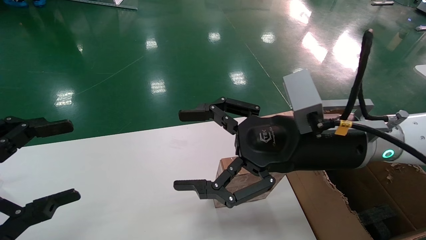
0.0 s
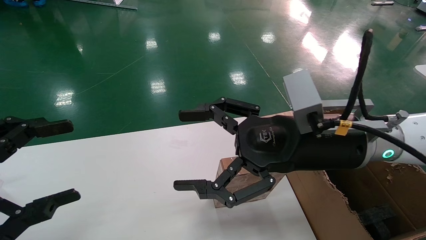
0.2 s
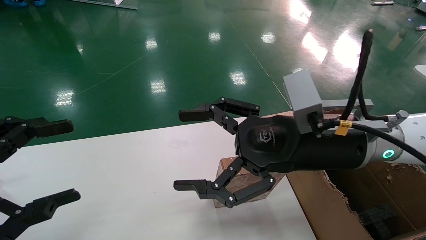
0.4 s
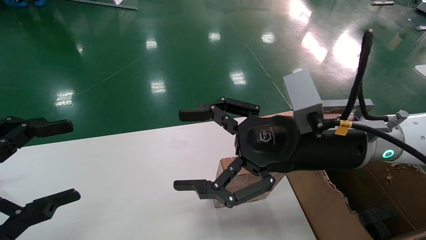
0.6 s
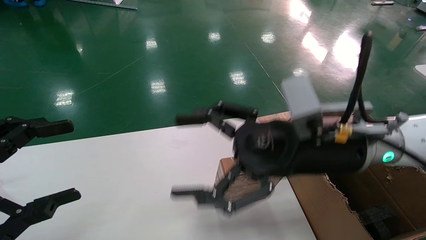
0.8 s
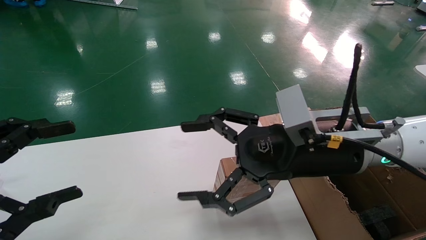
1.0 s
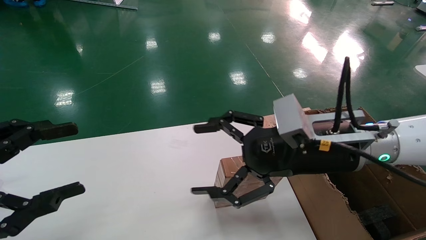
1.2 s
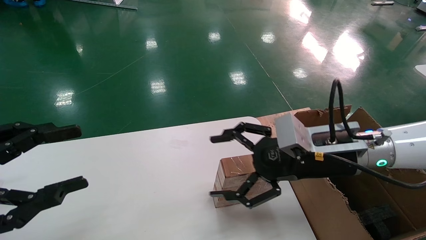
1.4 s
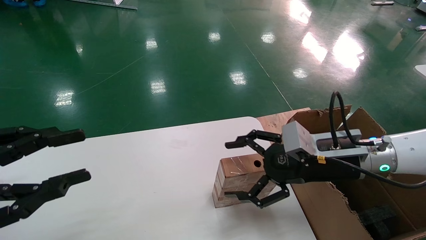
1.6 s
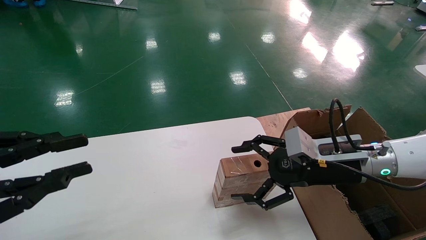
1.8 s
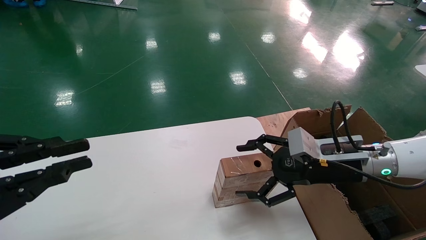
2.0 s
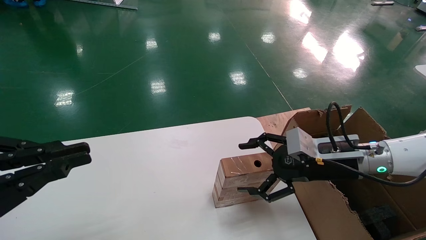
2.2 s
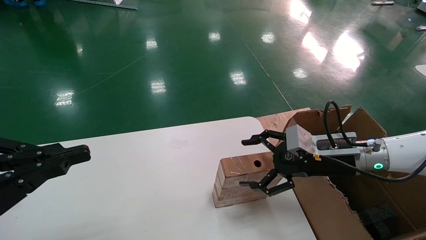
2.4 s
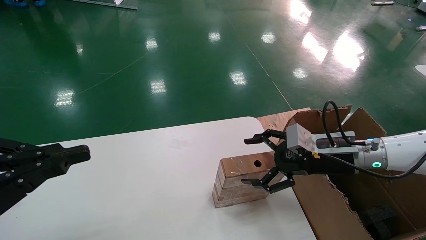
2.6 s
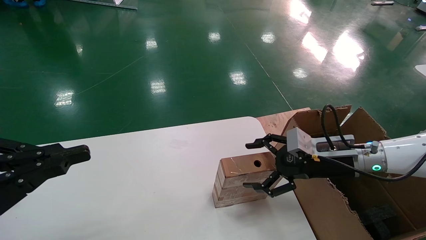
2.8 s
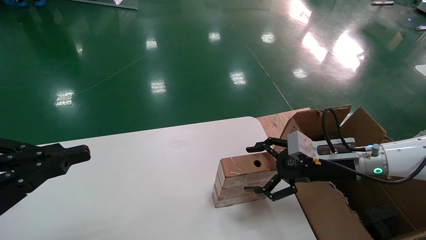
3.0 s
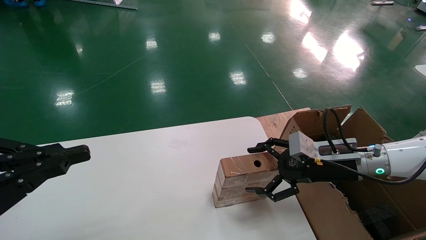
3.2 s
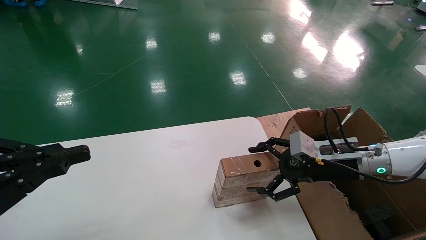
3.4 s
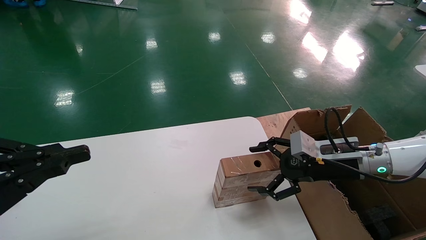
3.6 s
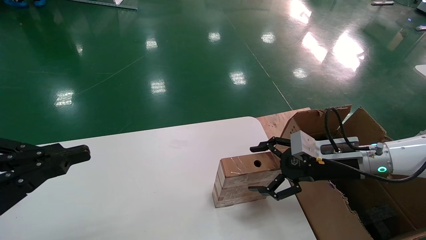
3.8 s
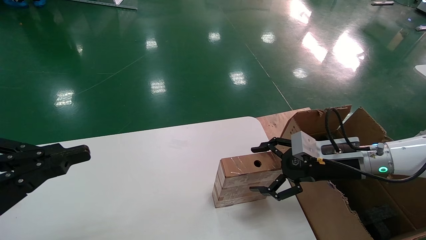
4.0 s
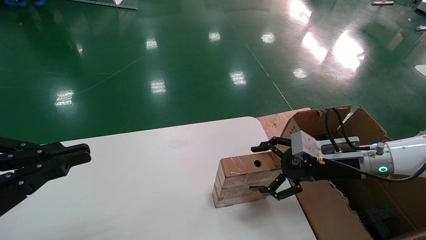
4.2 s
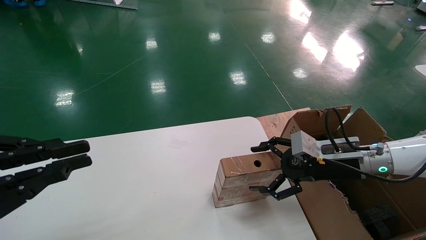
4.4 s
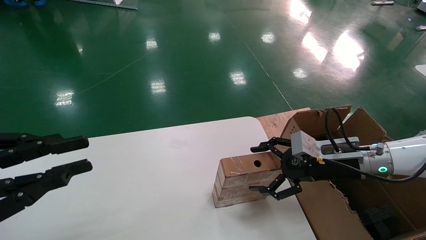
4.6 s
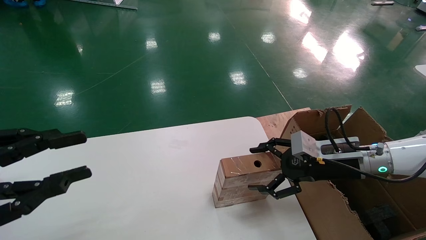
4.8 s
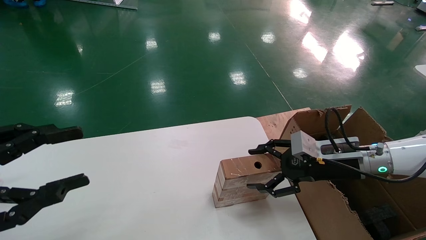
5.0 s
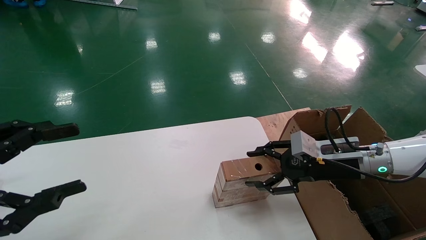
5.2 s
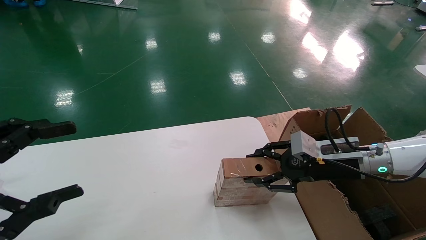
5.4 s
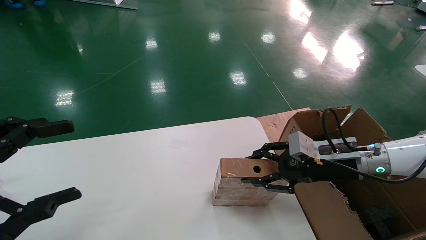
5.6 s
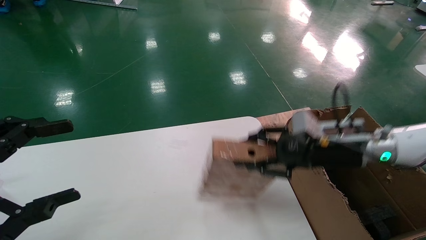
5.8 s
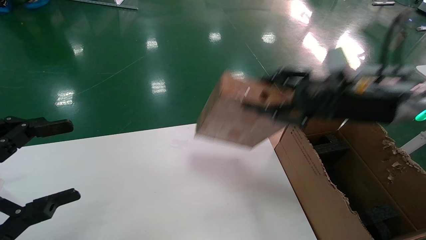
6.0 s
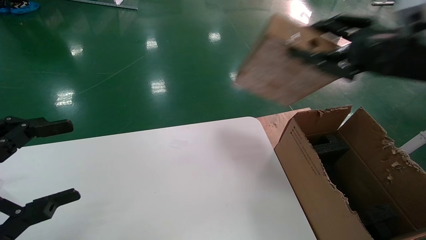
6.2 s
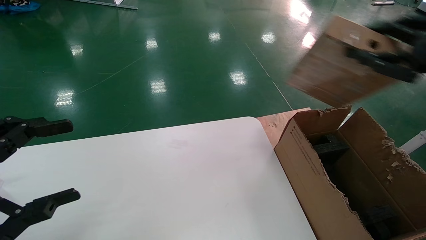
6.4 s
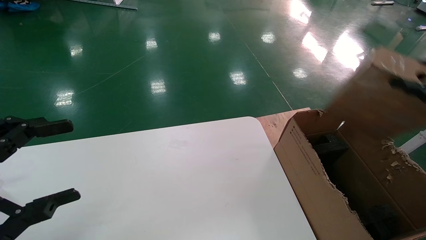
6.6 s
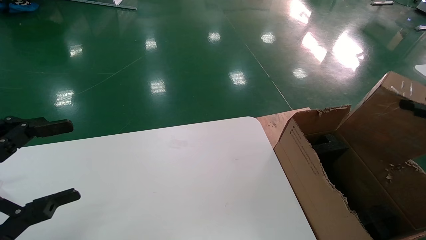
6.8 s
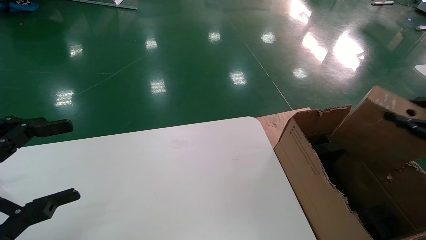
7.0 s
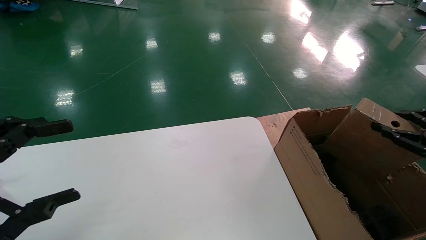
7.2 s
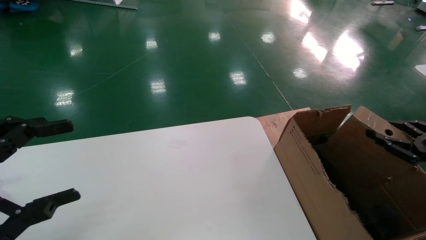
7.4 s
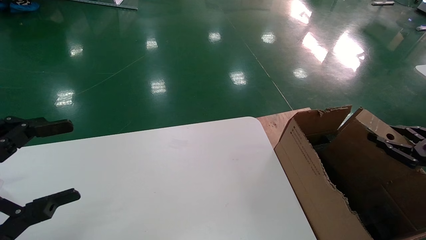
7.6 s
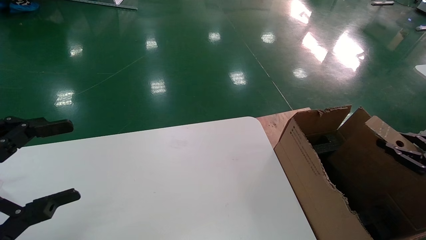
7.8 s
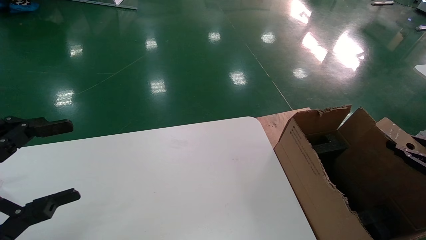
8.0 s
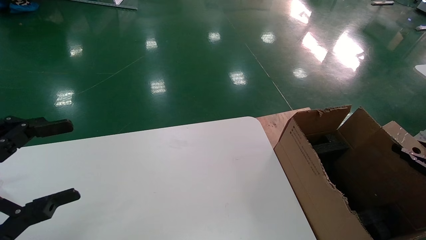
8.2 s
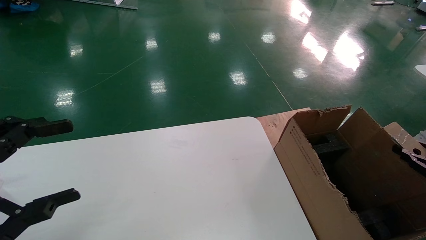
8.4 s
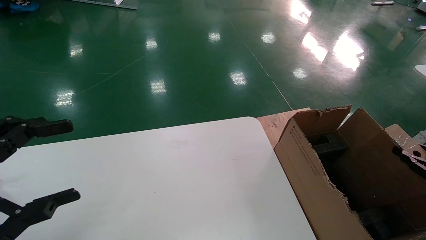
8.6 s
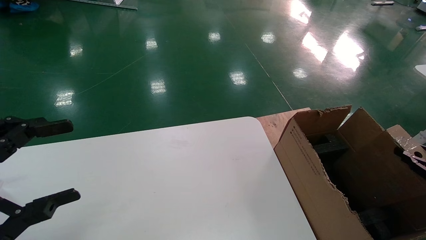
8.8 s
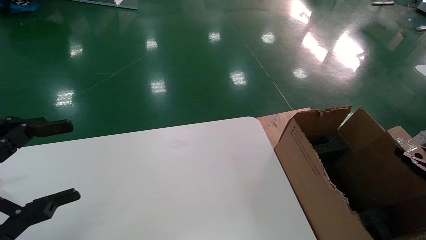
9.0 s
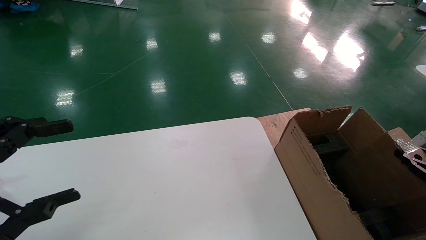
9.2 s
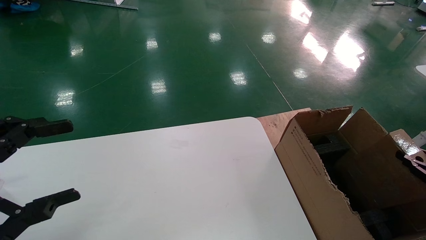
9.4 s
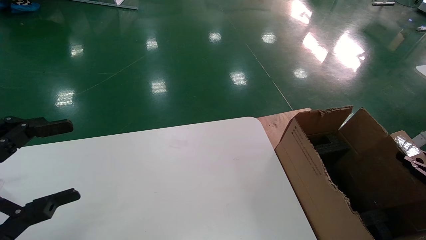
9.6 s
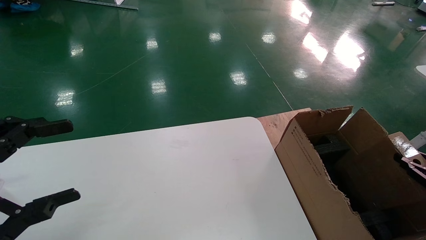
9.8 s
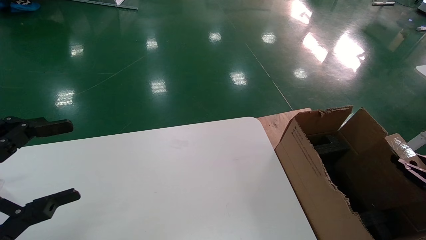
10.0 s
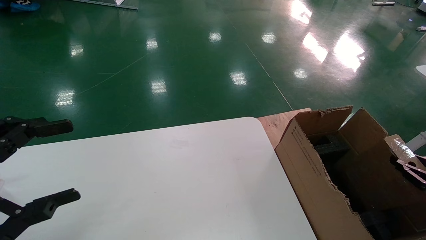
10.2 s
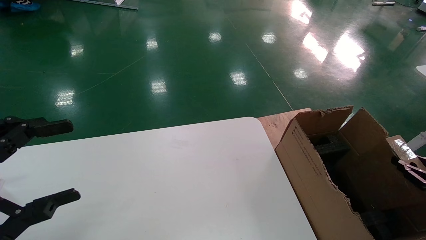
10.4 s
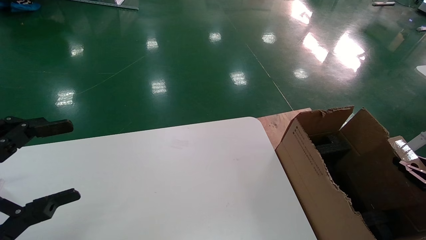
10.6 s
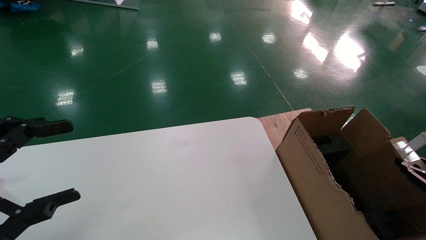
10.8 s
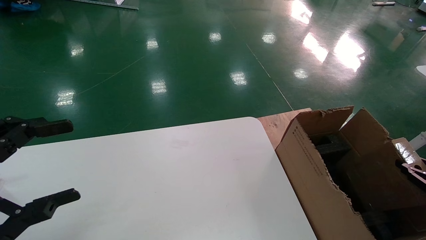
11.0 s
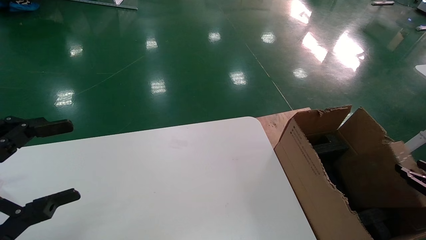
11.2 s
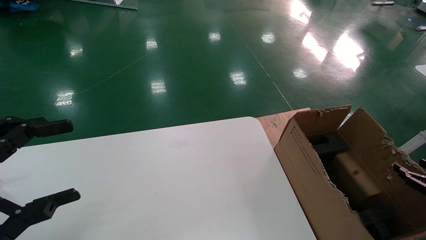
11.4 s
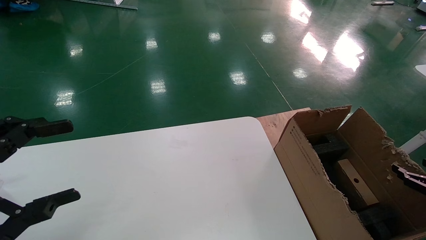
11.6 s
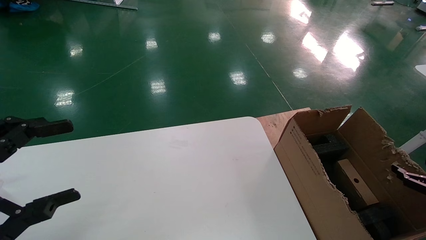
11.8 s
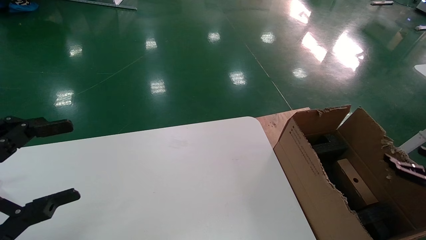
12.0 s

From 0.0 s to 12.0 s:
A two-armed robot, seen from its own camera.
Task of the whole recording: put the box on the table into the big box.
Step, from 1.2 s to 5.6 s: Pick up the mouse and the power cord paper box.
Step, from 5.8 s to 11.4 s: Place the mouse and the power cord paper box into the container.
From 0.0 s to 1.6 s: The right gripper moves to the right and downward, roughly 10 cm, while the left gripper closes up.
From 1.6 s to 3.0 s: The left gripper closes, while the right gripper shifts approximately 5 cm to the right.
From 3.0 s to 4.4 s: Neither gripper changes place.
From 4.4 s to 6.0 s: The left gripper opens; the right gripper travels upward by about 15 cm, and closes.
From 6.0 s to 7.6 s: The right gripper goes about 30 cm to the right, downward and backward.
From 7.6 s to 9.0 s: The right gripper is displaced downward by some 5 cm.
From 9.0 s to 10.4 s: The grippers move only a little.
From 10.4 s to 12.0 s: The right gripper opens.

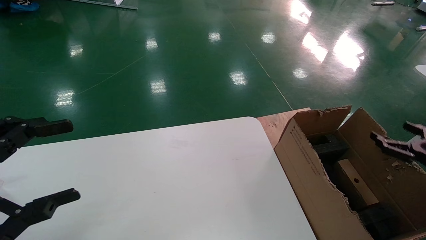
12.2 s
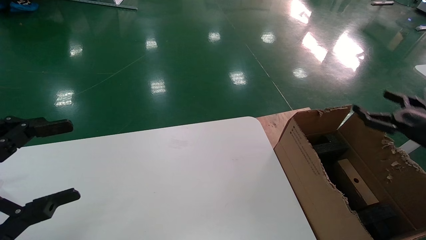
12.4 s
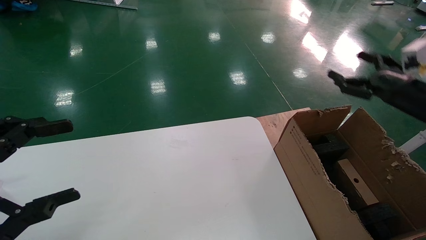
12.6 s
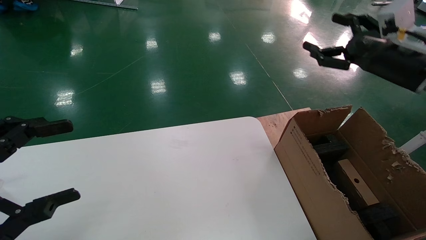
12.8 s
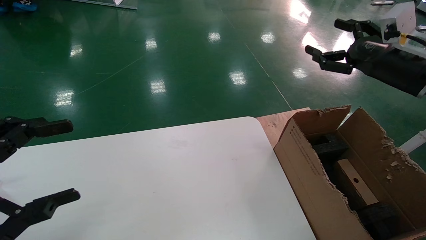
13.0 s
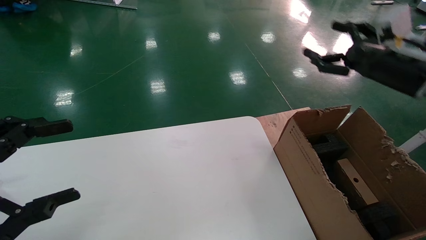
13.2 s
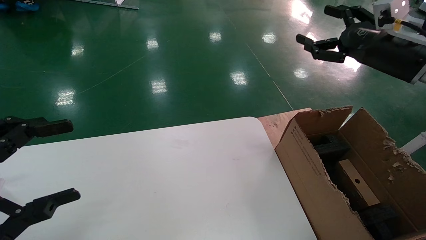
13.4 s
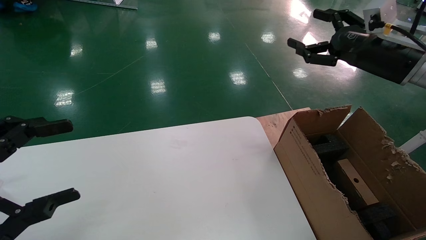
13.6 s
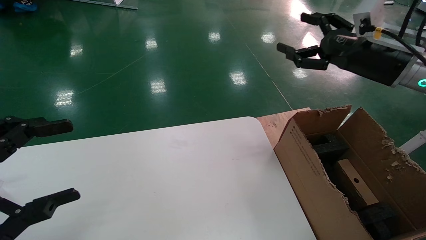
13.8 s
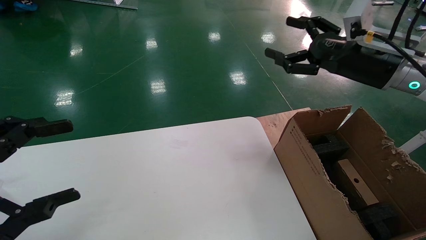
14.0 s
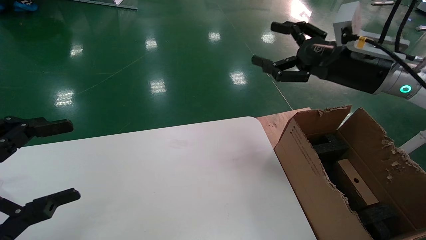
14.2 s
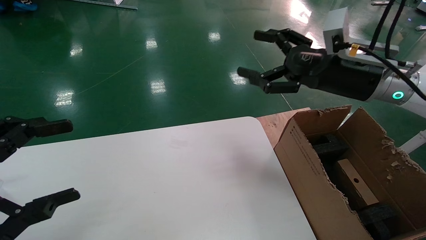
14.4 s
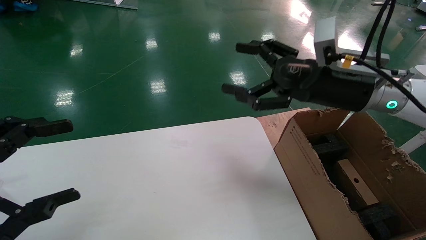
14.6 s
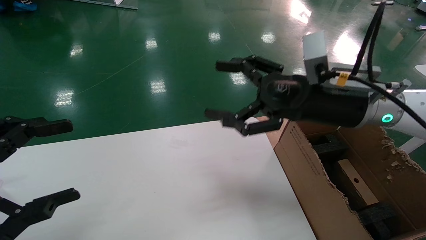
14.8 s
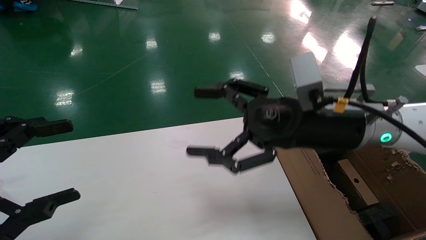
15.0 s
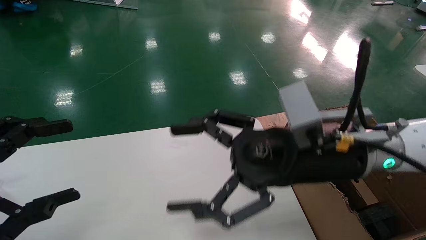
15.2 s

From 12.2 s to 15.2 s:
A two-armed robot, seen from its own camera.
Task of the whole recording: put the box on the table into the big box.
From 12.2 s to 13.8 s: The right gripper is displaced upward, to the left and forward by approximately 25 cm.
From 13.8 s to 15.2 s: The right gripper shifts roughly 20 cm to the left and backward.
